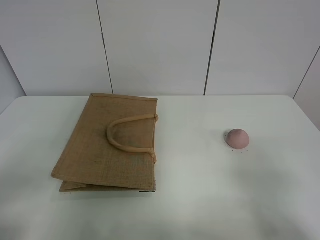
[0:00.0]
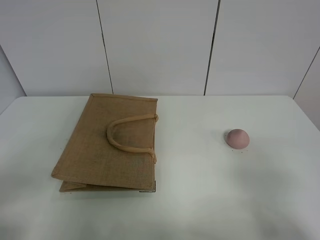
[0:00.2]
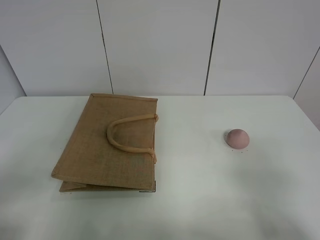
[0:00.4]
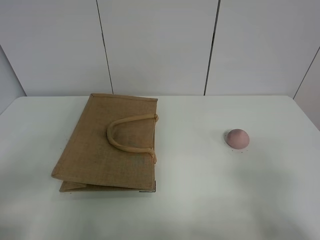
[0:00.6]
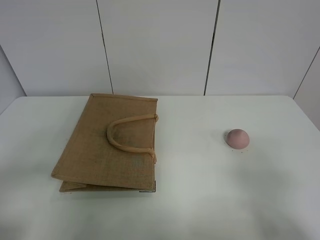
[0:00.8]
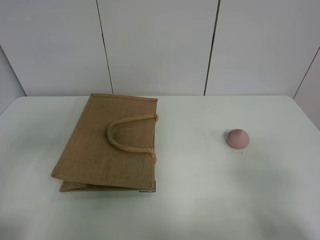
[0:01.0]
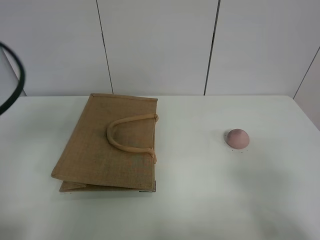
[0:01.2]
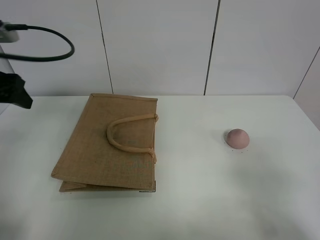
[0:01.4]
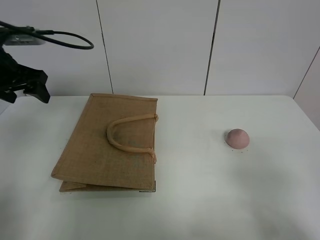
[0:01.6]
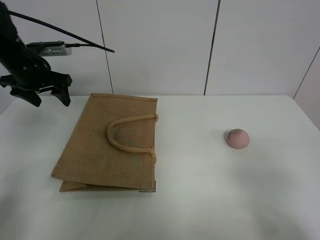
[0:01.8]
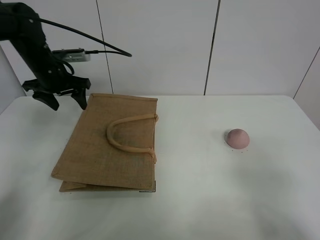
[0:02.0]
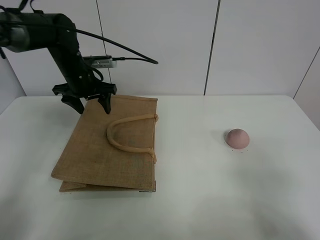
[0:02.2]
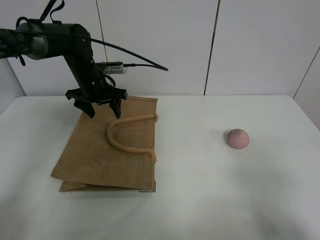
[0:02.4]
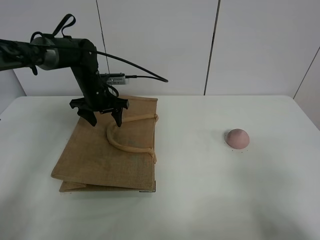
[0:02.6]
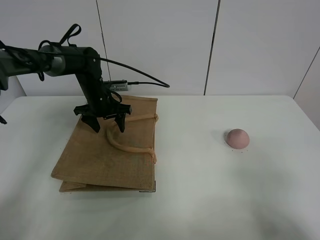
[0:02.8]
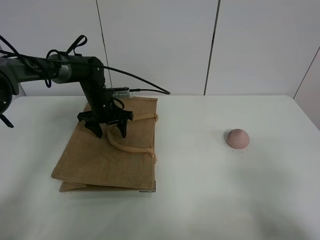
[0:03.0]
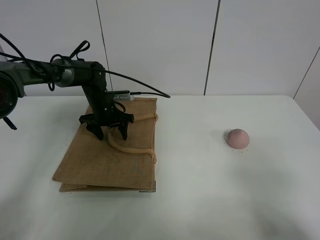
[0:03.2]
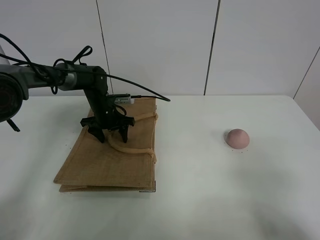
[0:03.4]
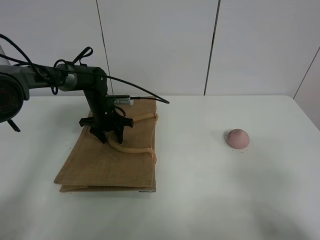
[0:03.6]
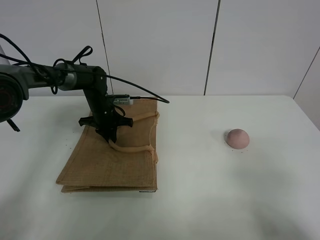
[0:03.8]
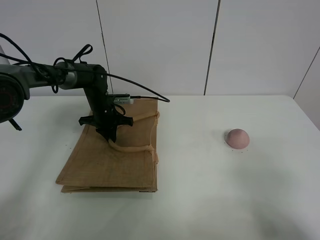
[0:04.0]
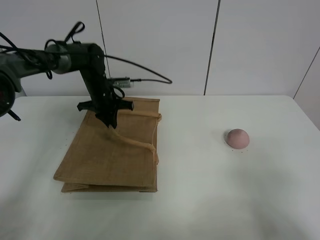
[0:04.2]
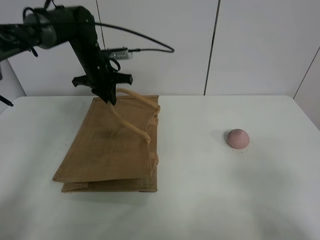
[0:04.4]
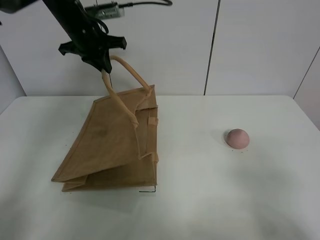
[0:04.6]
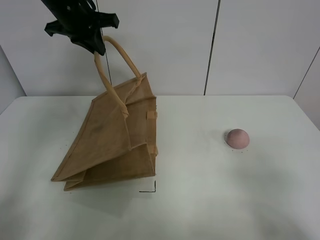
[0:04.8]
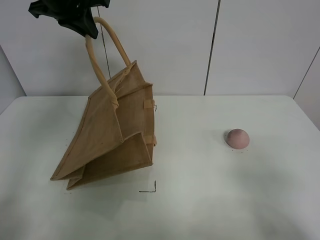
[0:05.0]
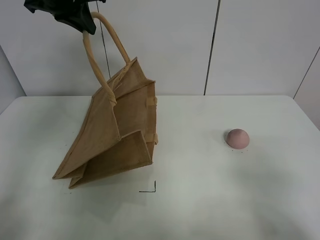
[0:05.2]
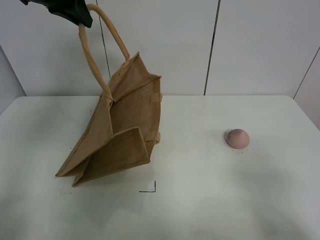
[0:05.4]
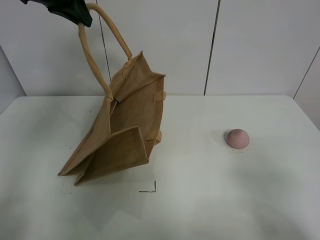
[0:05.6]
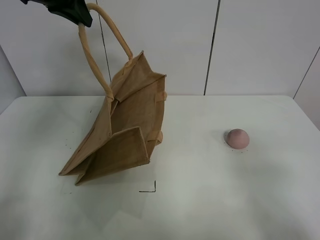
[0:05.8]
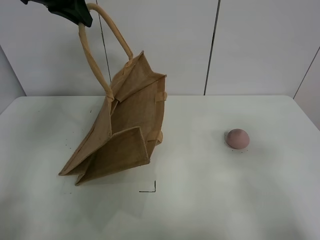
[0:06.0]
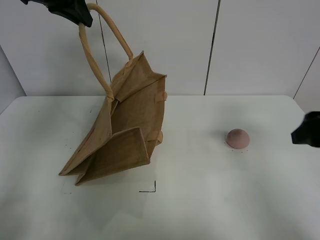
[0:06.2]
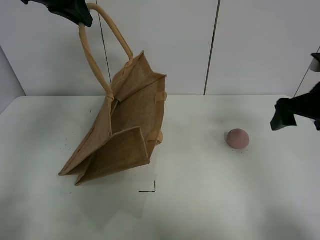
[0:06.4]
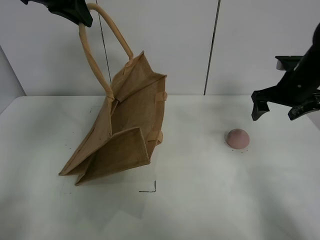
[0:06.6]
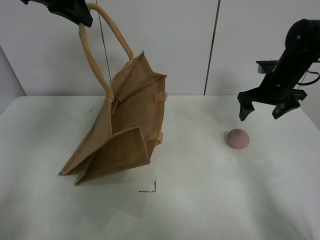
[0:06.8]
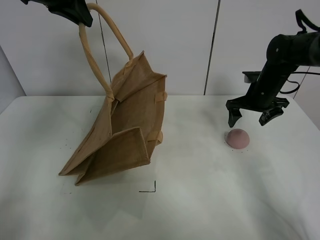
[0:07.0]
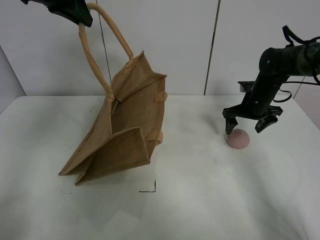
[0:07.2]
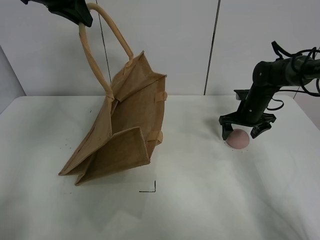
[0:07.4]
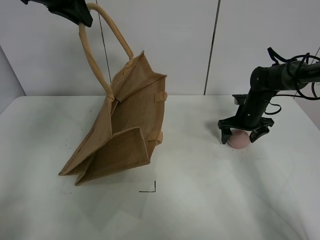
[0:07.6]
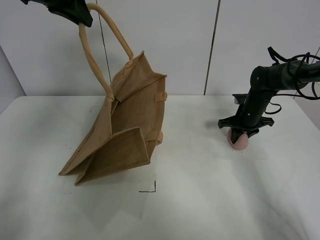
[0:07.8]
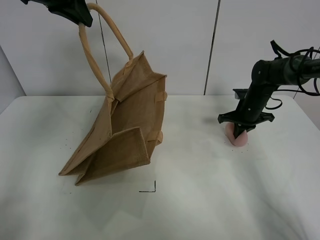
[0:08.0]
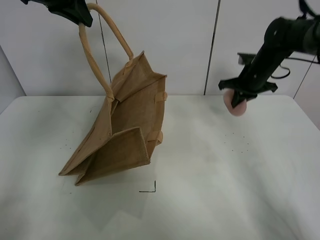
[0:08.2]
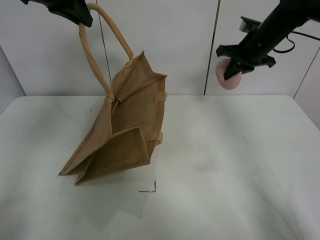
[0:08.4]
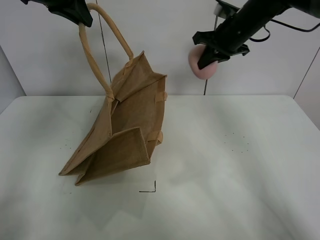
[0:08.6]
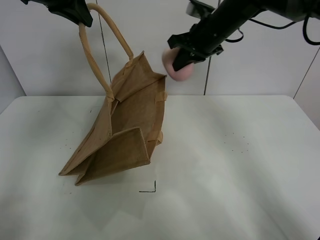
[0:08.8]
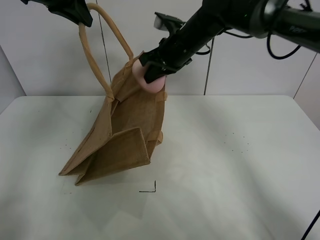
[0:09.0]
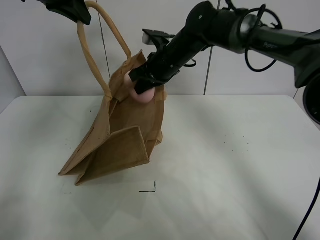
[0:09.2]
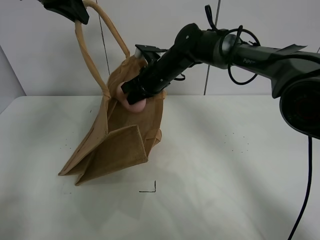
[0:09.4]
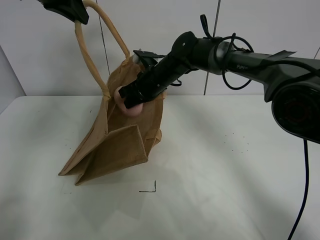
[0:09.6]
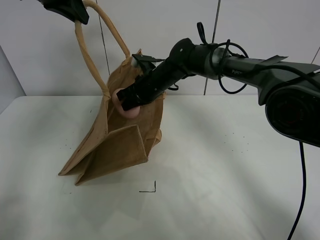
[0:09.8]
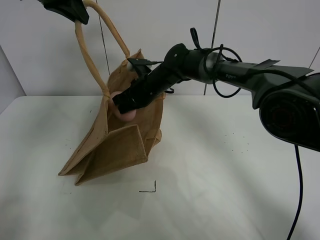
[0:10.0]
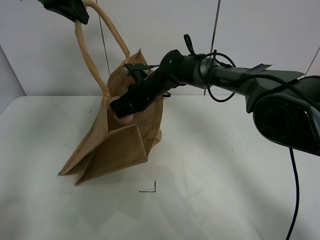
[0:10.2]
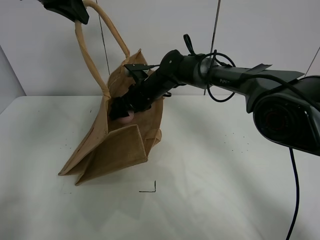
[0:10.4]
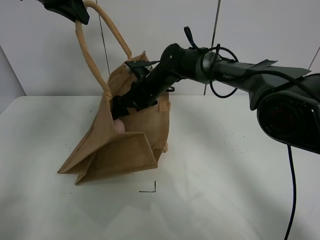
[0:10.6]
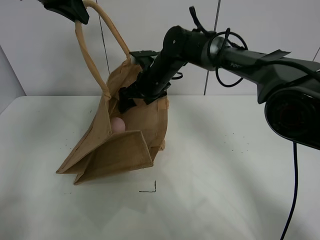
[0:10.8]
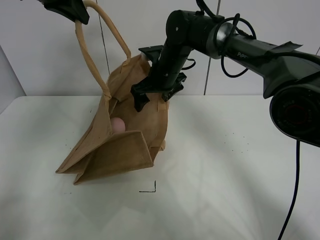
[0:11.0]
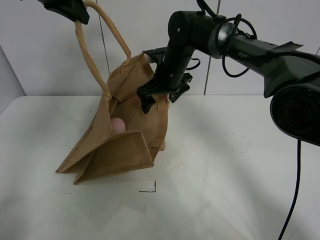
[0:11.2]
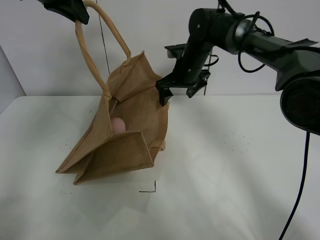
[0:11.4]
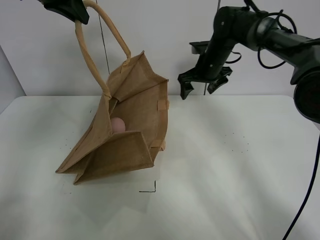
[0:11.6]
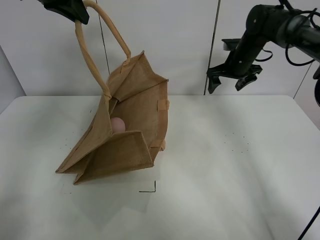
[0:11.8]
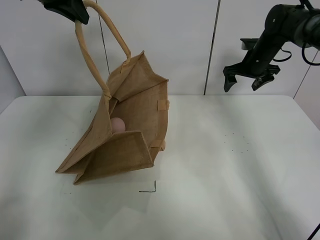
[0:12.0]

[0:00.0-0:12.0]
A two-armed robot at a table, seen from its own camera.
Task of the whole recording: open the brown linen bag and put the peach in the bag.
Step, 0:00.0 to 0:05.0: Lift the handbag with left gripper.
Step, 0:05.2 to 0:07.8: Grasp the peach with right gripper.
Step, 0:08.0 to 0:11.4: Place the peach in the handbag with right gripper.
0:00.0 to 0:01.6: The left gripper is displaced forward by about 35 cm.
0:01.6 to 0:03.0: The left gripper is displaced downward, to the right and forward by approximately 25 cm.
0:03.0 to 0:04.4: The left gripper travels upward by approximately 15 cm, and closes up.
0:04.4 to 0:06.0: The right gripper goes roughly 10 cm forward. Meanwhile the left gripper is displaced upward and backward by roughly 20 cm.
0:06.0 to 0:07.6: The right gripper is displaced forward and downward by some 40 cm.
0:07.6 to 0:09.0: The right gripper is displaced to the left and upward by roughly 30 cm, and closes its fingers.
0:09.0 to 0:10.4: The right gripper shifts some 15 cm downward and to the left, and opens.
0:10.4 to 0:12.0: The right gripper goes roughly 30 cm to the right.

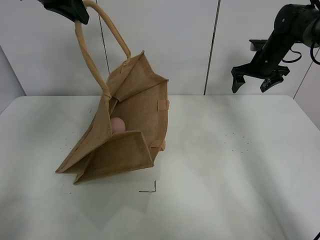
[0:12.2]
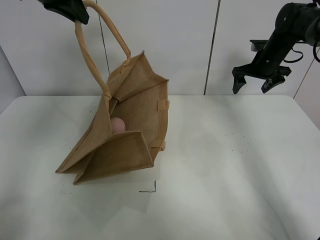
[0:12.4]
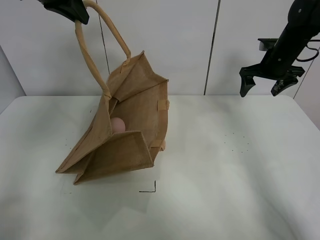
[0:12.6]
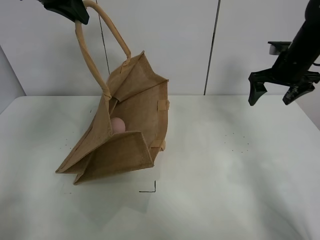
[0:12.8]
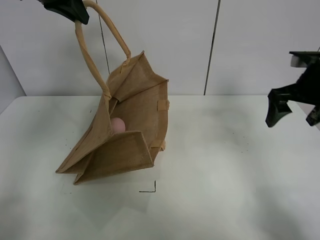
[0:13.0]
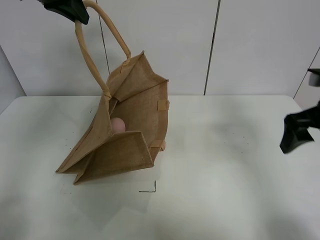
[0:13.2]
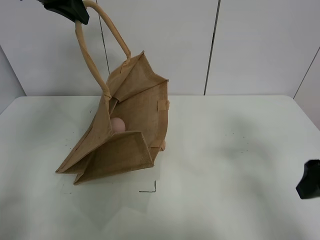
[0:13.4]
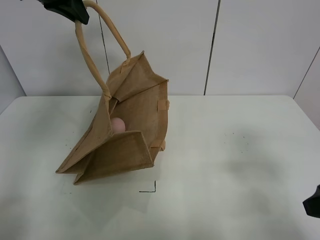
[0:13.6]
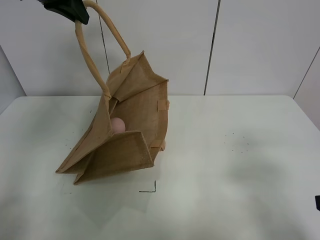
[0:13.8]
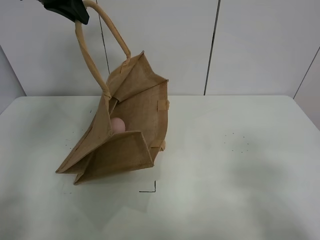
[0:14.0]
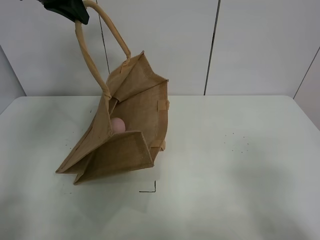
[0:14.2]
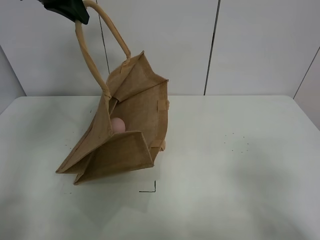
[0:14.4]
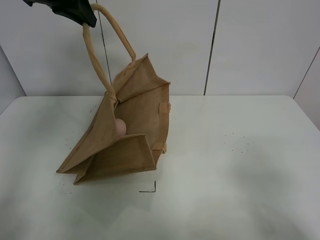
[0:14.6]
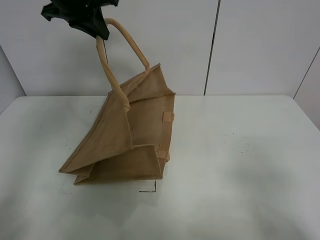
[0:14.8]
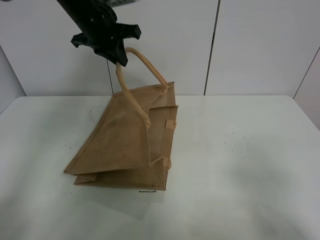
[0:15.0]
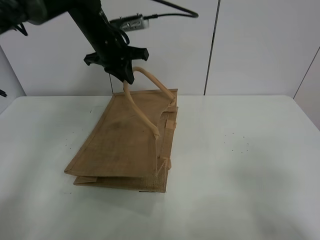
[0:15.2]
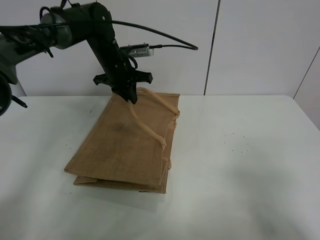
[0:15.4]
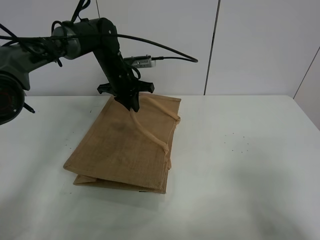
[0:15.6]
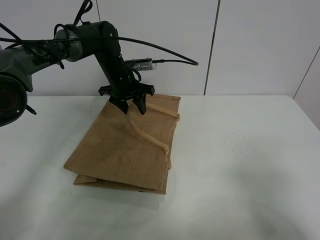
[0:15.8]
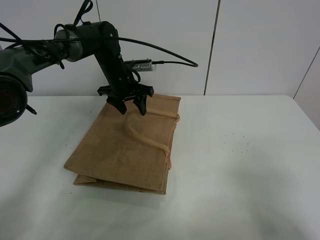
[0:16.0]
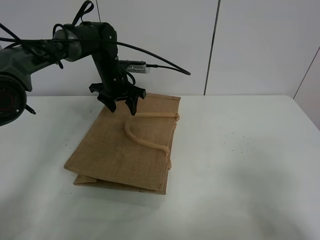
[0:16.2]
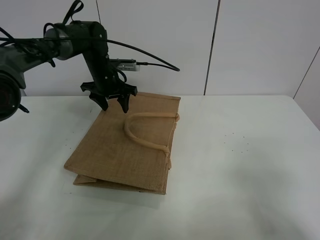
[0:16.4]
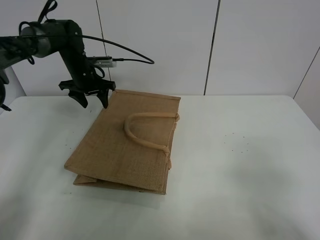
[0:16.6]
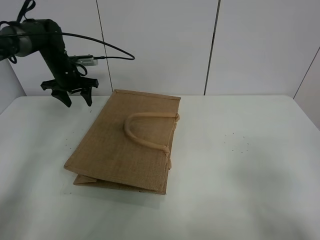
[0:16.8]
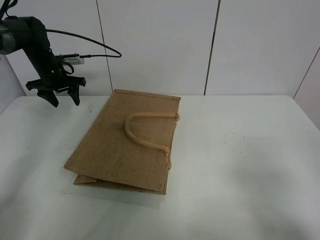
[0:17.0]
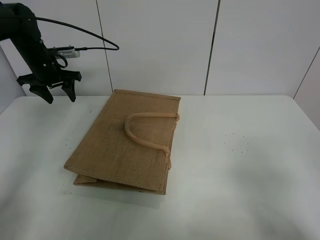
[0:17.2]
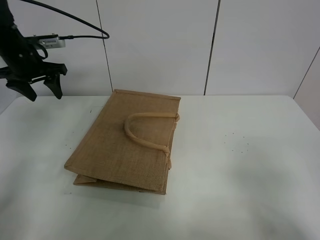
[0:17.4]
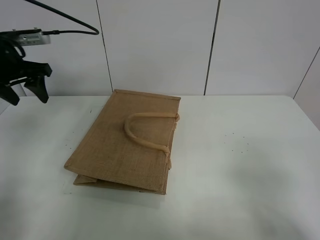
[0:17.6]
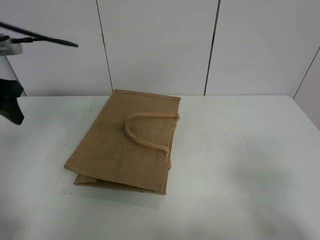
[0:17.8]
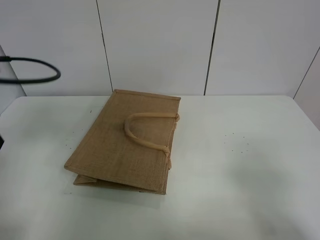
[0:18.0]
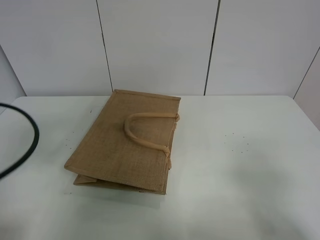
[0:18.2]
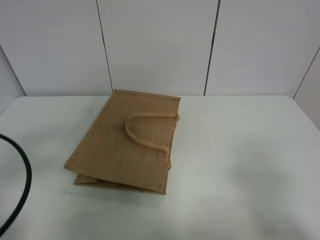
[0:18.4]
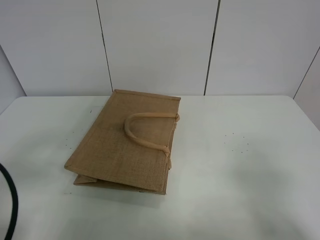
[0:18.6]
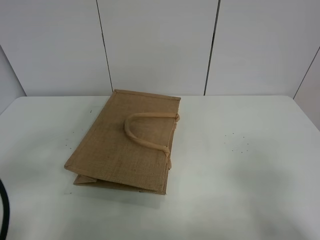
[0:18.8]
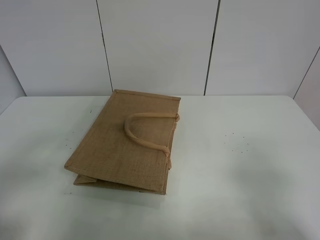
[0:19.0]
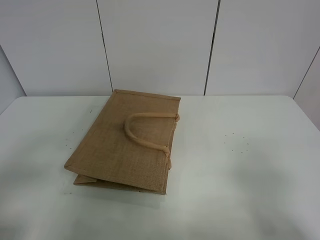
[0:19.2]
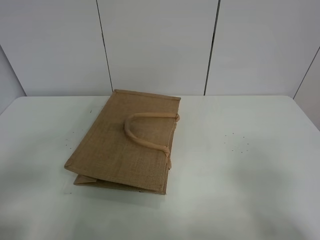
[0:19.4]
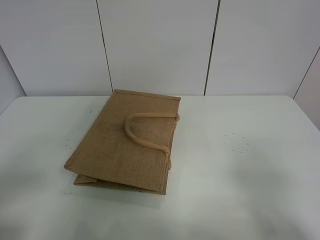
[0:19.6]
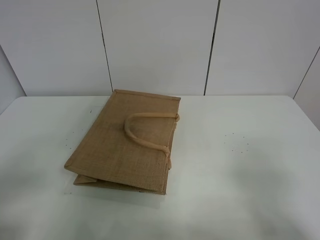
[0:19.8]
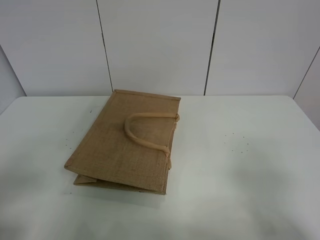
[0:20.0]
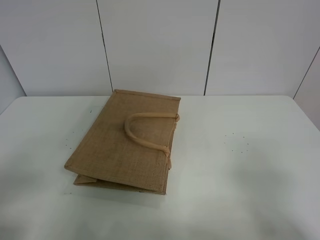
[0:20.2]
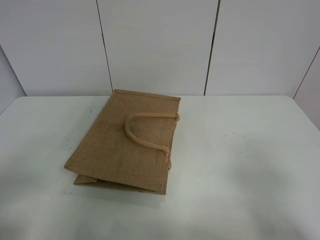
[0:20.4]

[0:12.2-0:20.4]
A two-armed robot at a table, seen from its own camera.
Task of the whole recording: open the brown linen bag and put the peach in the bag.
Step, 0:12.2 to 0:16.6: Put down the handbag with left grippe.
0:12.2 to 0:13.8: The right gripper moves backward, about 40 cm.
0:13.8 to 0:15.4: The right gripper heads backward, covering about 5 cm. The left gripper shifts roughly 25 cm downward and forward.
0:15.4 to 0:17.2: The left gripper travels to the left by roughly 20 cm, and opens up.
0:17.2 to 0:18.8: The left gripper goes roughly 40 cm backward.
